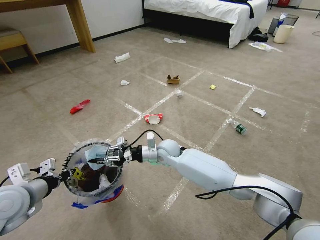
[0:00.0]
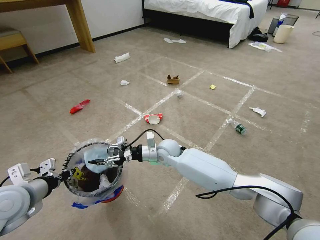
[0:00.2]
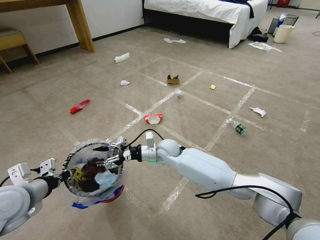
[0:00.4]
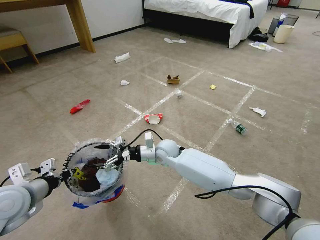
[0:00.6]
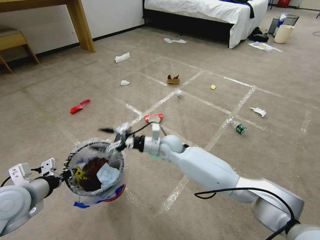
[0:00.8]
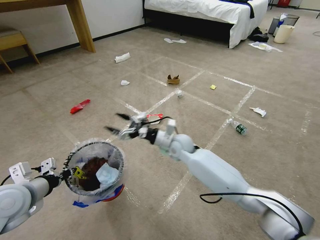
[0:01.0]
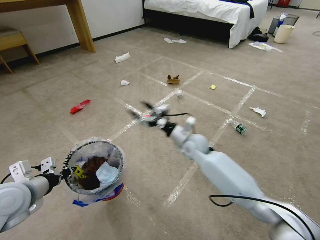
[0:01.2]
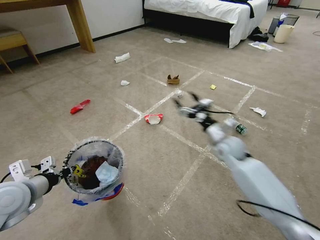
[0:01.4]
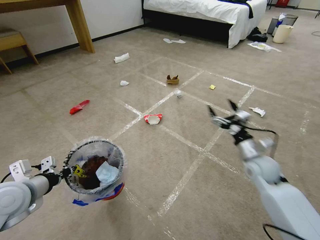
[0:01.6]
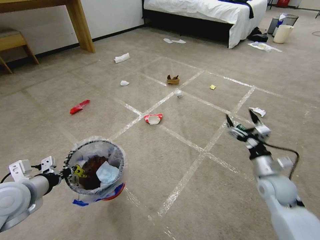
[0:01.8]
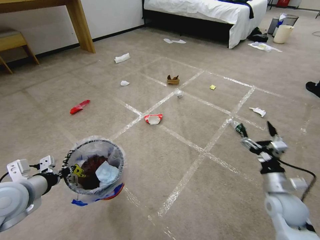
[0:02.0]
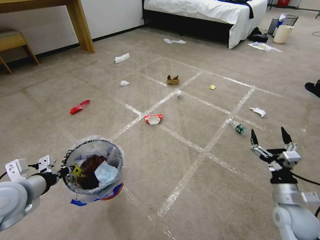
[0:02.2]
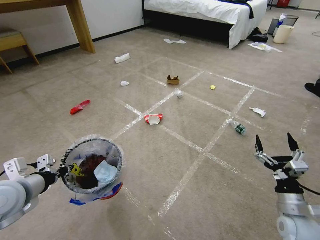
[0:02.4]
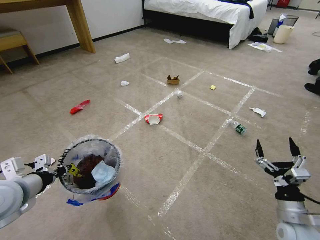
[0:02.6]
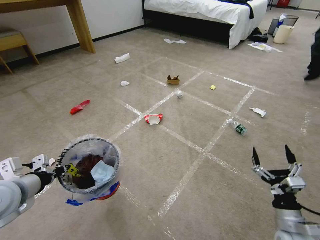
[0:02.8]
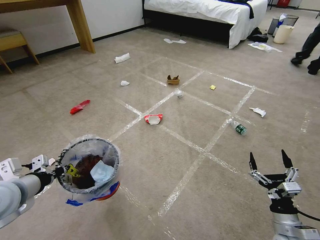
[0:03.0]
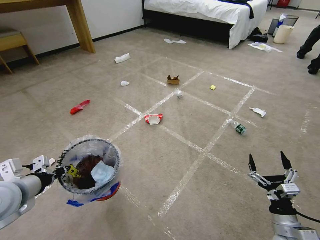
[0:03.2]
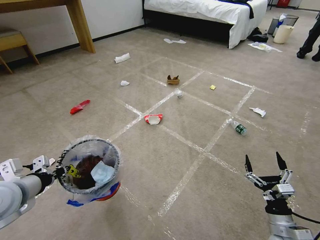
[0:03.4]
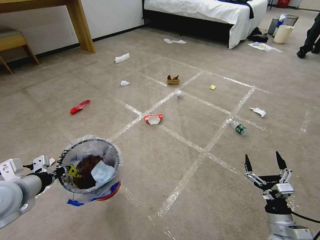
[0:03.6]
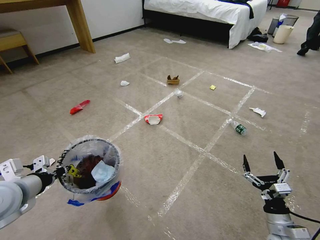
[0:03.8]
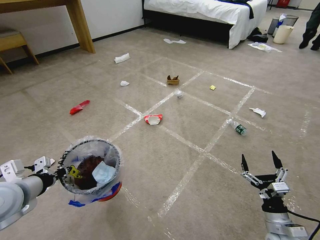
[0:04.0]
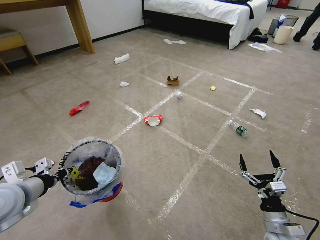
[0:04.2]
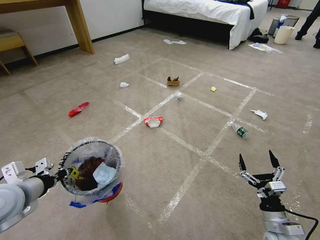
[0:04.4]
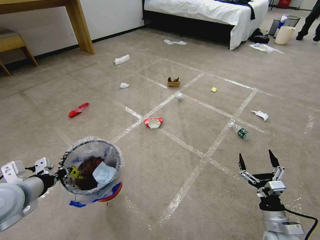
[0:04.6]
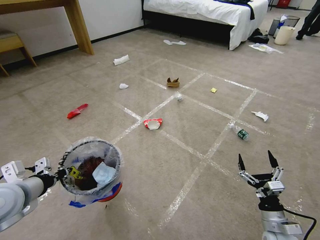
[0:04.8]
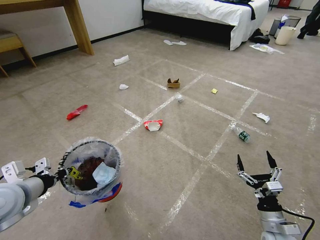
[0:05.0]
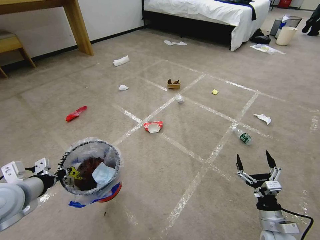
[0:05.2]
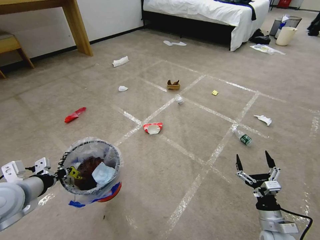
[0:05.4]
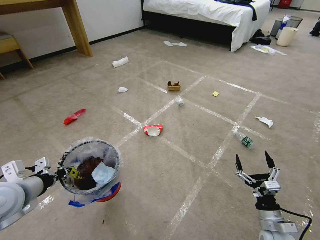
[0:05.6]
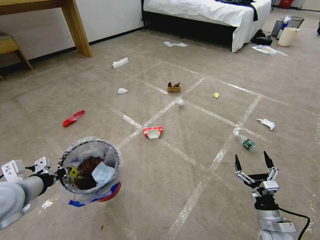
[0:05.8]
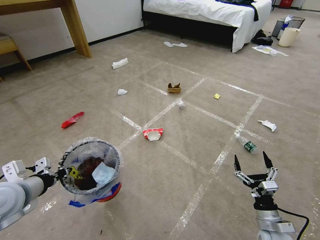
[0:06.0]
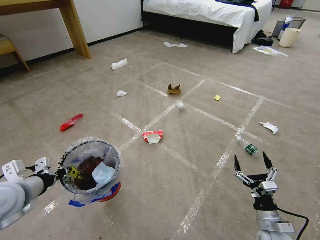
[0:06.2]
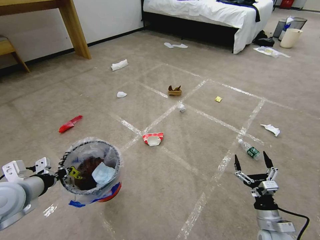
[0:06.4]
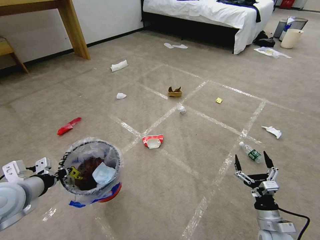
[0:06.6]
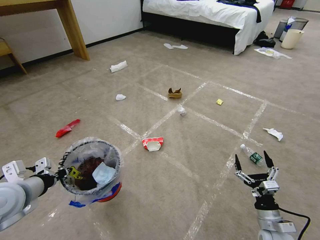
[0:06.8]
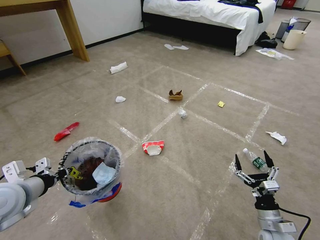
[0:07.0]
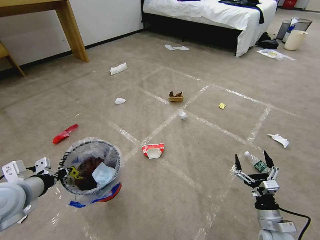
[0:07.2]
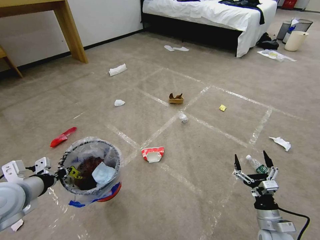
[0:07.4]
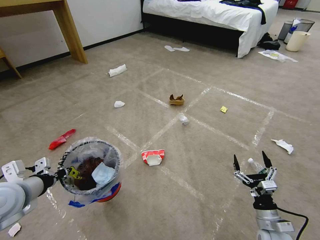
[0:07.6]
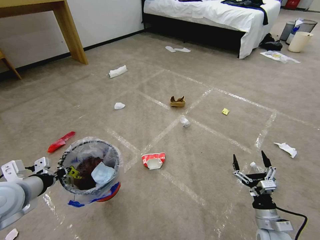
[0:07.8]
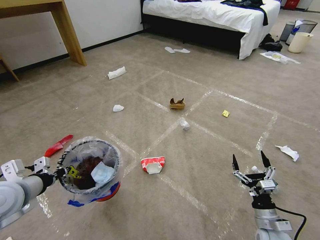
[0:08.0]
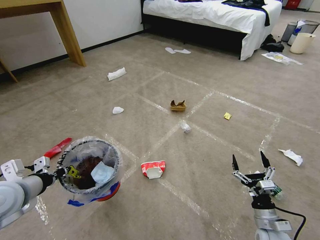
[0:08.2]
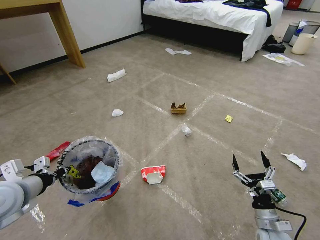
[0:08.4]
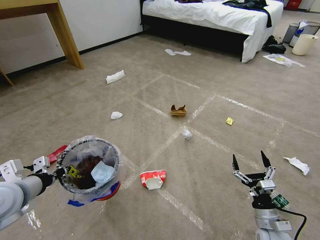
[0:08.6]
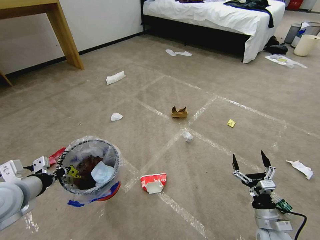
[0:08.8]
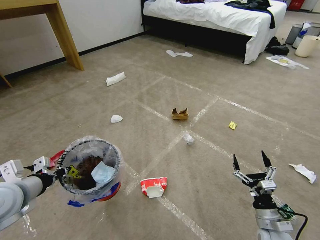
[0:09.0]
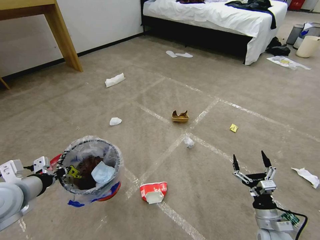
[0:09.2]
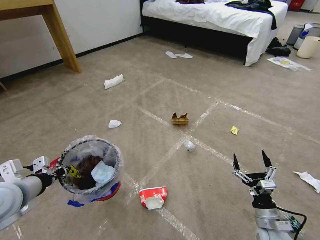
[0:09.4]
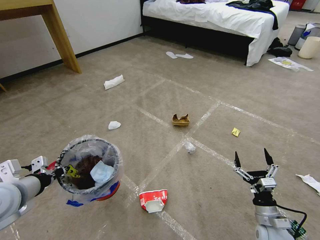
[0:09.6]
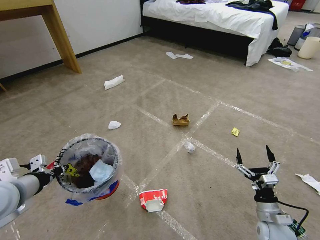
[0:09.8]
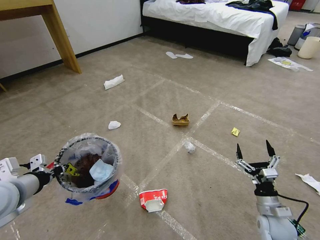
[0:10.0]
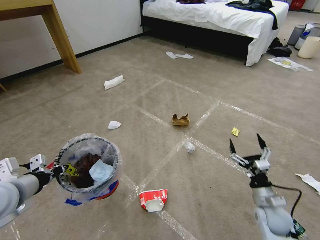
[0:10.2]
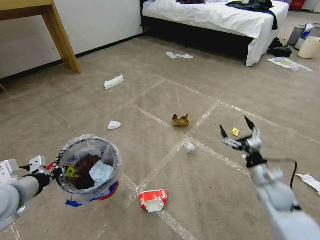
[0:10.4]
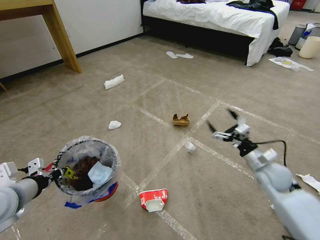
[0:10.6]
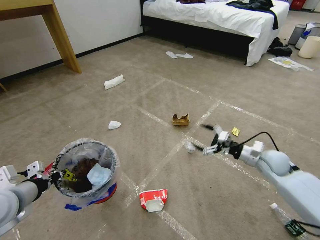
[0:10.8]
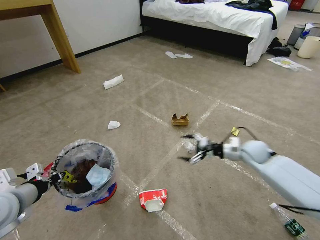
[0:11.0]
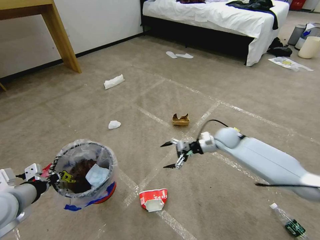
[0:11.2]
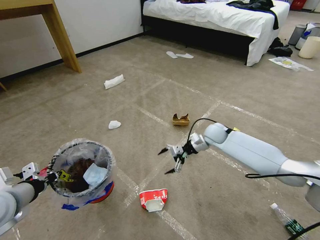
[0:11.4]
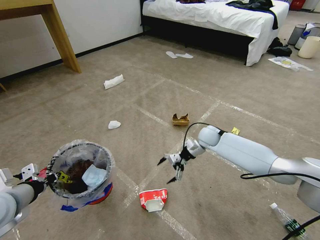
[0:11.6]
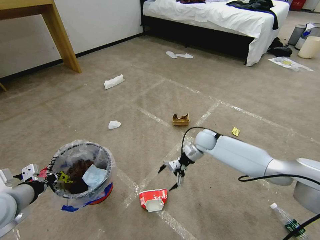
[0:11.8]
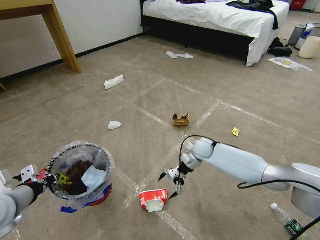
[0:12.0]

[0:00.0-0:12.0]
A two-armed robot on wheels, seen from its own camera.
Task of the whole recording: Pick up the trash bin and place the garbage on the floor into it.
0:00.0 to 0:01.6: The right gripper moves to the right, about 30 cm, and opens.
0:01.6 to 0:03.0: The right gripper is displaced backward and downward by some 20 cm.
0:03.0 to 0:06.0: The grippers stay close to where they were, moving slightly.
0:06.0 to 0:09.0: Both grippers stay about where they are.
0:09.0 to 0:10.4: The right gripper heads forward and upward, covering approximately 15 cm.
0:10.4 to 0:12.0: The right gripper heads forward and to the left, covering about 30 cm.

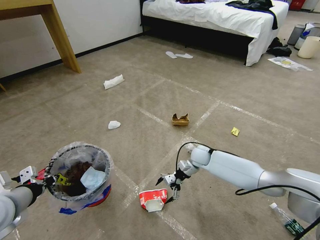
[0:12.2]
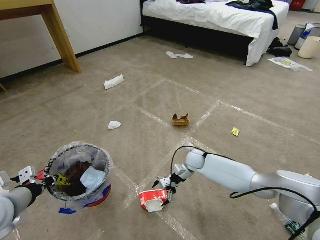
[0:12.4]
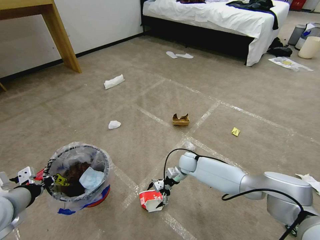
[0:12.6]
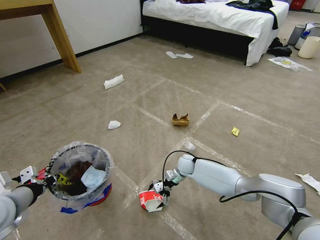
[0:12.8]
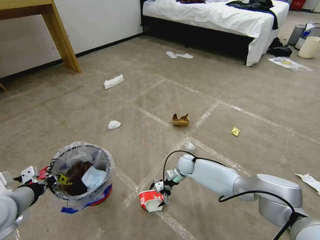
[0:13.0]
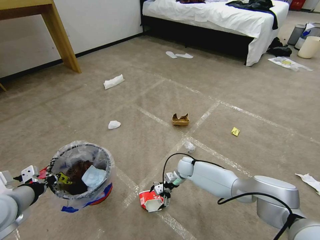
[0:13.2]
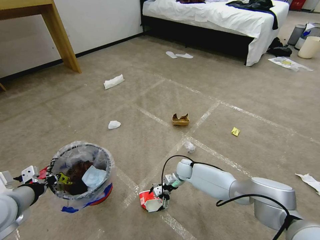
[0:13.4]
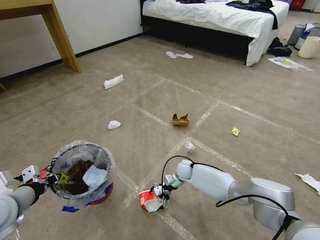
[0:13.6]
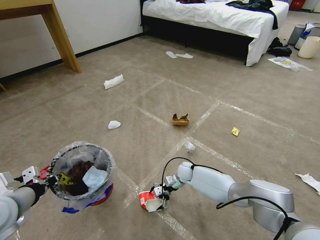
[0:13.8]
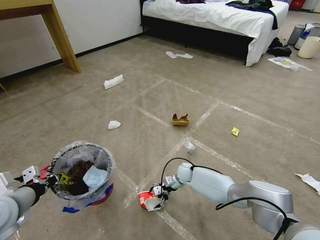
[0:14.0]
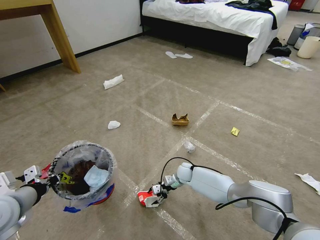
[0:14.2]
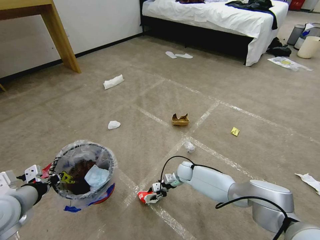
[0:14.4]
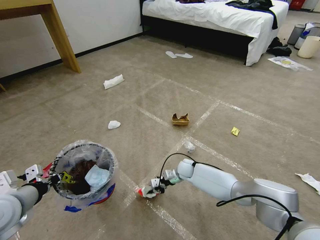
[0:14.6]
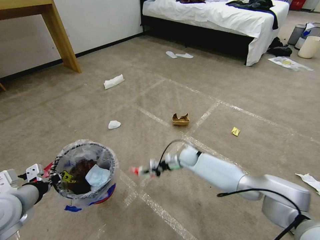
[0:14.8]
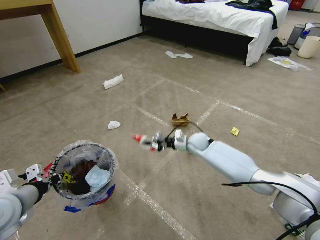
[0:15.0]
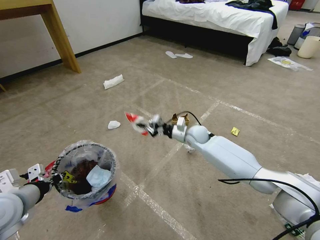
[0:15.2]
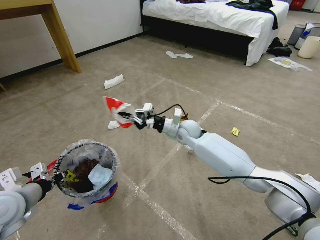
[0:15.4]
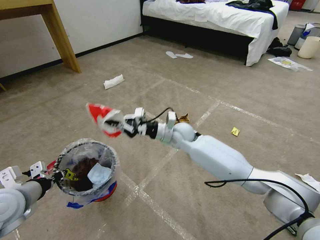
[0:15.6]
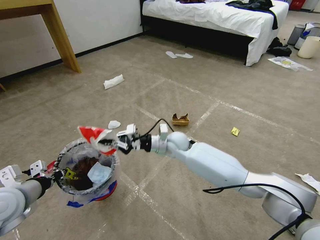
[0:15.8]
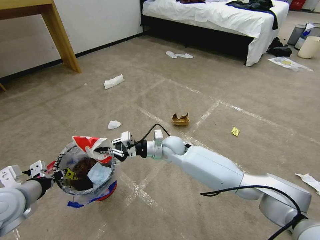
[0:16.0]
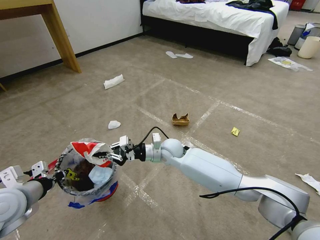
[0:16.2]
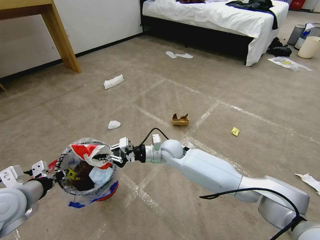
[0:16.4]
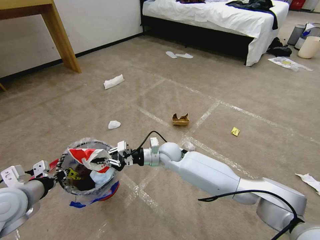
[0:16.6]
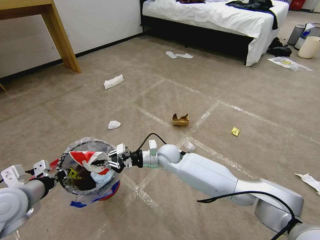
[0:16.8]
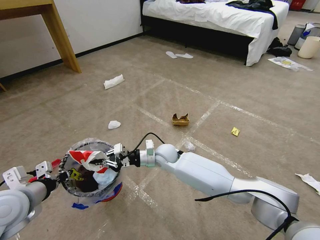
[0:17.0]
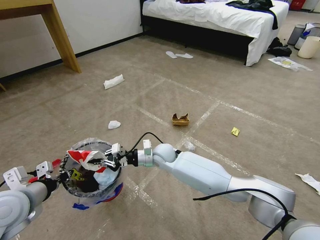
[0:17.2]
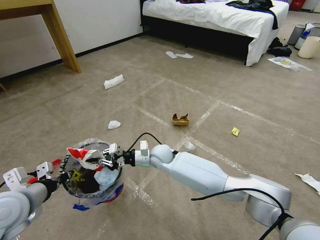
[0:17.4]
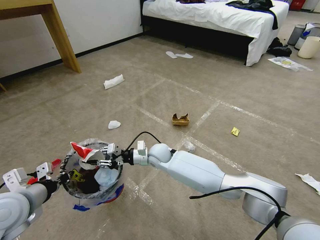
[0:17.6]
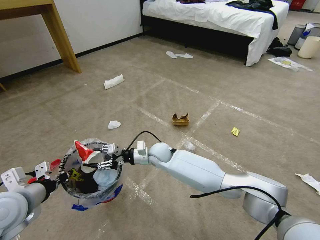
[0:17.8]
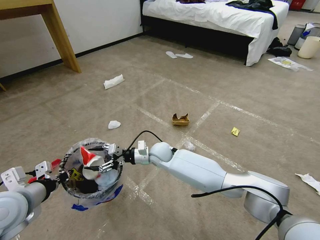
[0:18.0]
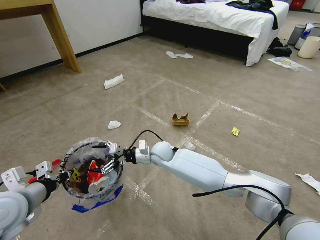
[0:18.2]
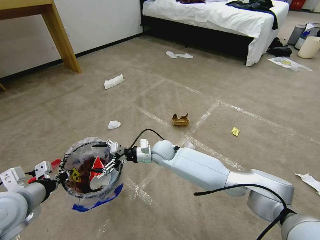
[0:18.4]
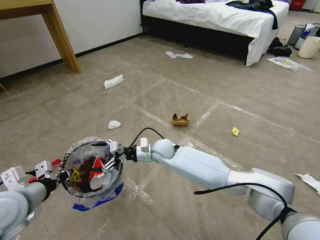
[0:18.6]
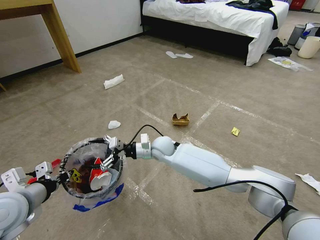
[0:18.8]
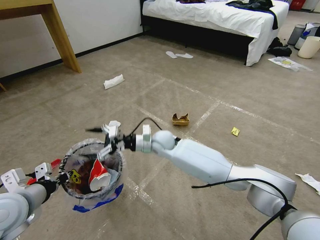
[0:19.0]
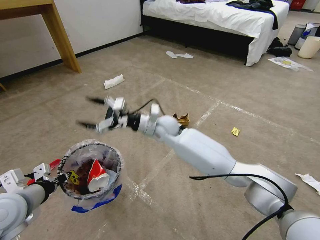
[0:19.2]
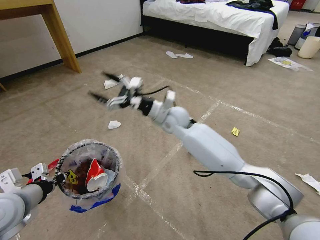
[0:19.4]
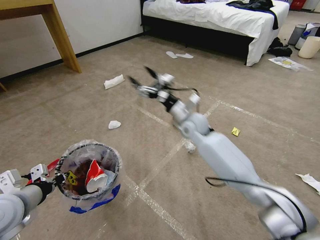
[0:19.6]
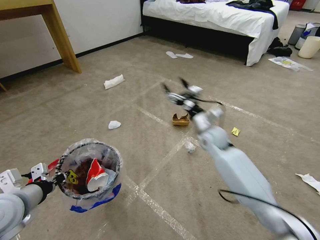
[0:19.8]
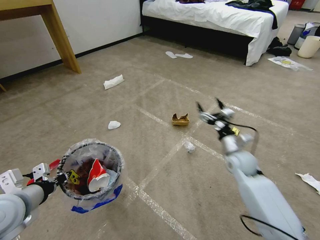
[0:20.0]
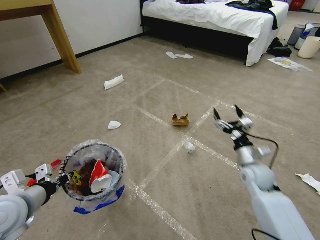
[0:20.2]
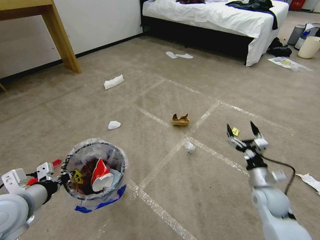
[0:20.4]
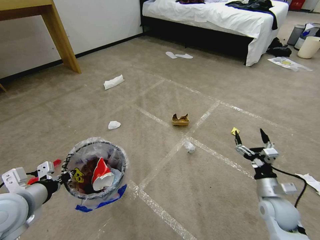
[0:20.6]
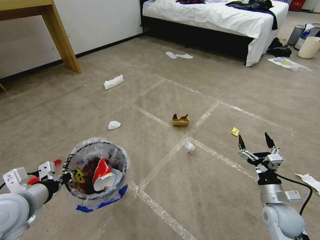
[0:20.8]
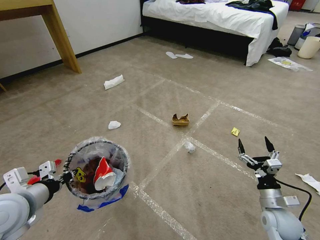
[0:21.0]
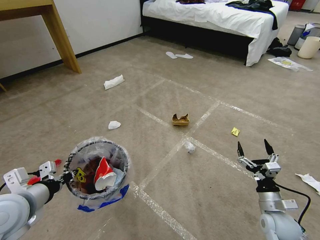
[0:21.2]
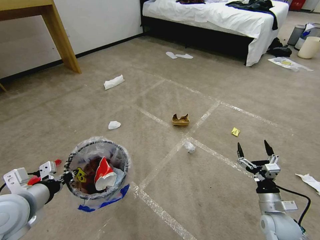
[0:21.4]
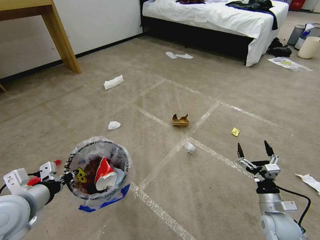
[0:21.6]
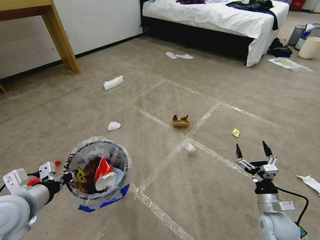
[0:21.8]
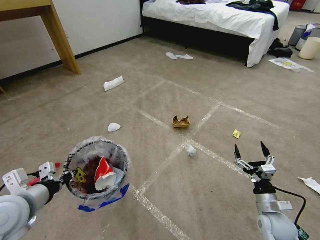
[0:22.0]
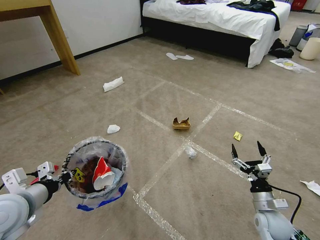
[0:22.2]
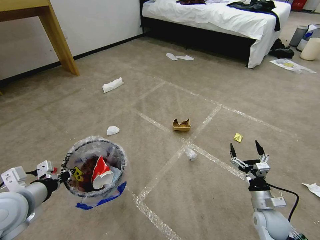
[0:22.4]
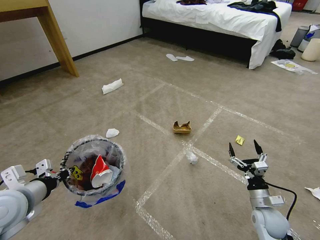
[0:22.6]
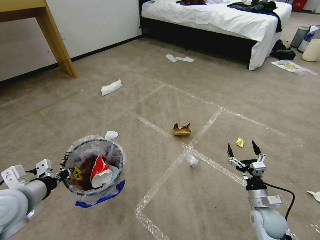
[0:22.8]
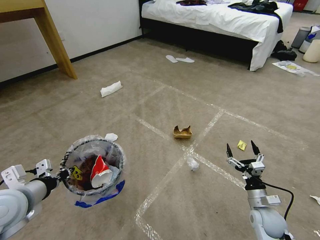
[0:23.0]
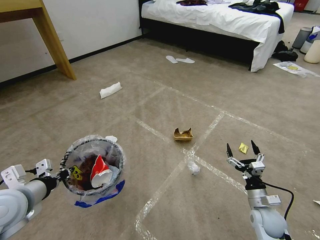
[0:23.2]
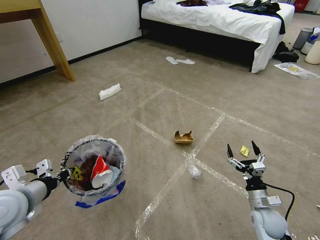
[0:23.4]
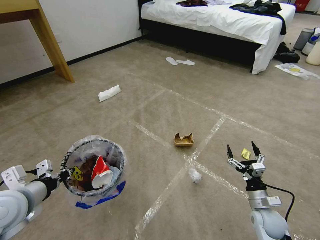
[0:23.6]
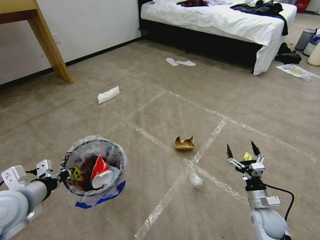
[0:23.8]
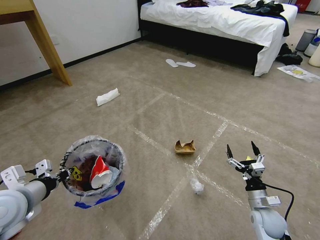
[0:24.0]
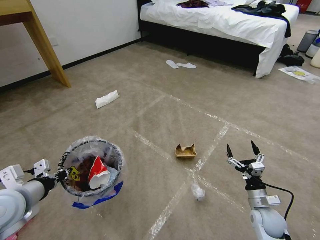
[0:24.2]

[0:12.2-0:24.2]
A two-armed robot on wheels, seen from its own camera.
Task of the whole recording: Pick up the trash bin and place the garbage on the floor into it.
0:12.2 to 0:13.8: The right gripper shifts roughly 10 cm downward and to the left.
0:13.8 to 0:15.2: The right gripper is displaced upward by approximately 20 cm, and closes.
0:15.2 to 0:16.6: The right gripper shifts some 15 cm to the left and backward.
0:16.6 to 0:18.2: The right gripper opens.
0:18.2 to 0:19.8: The right gripper heads to the right and upward, covering about 20 cm.
0:19.8 to 0:21.2: The right gripper shifts about 35 cm backward, to the right and downward.
0:21.2 to 0:22.6: The grippers make only small movements.
